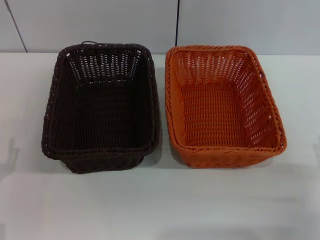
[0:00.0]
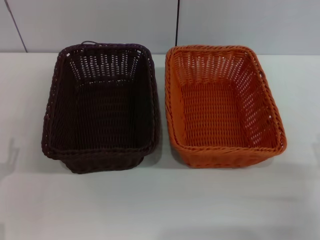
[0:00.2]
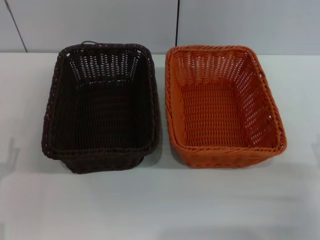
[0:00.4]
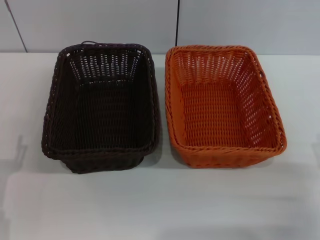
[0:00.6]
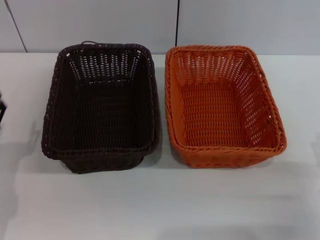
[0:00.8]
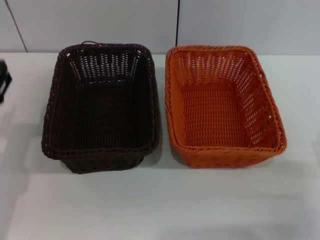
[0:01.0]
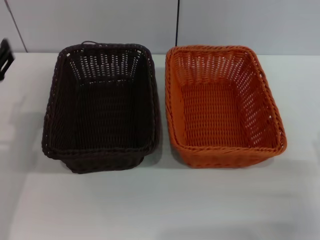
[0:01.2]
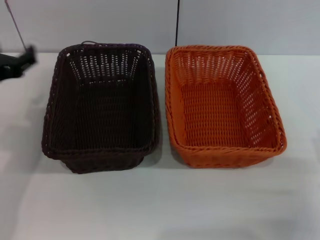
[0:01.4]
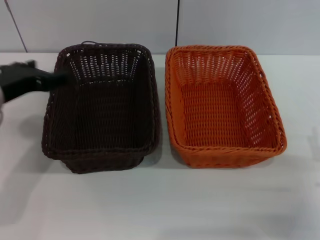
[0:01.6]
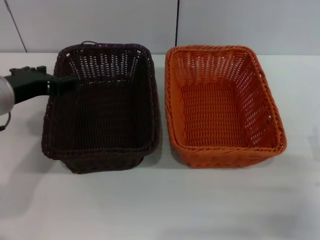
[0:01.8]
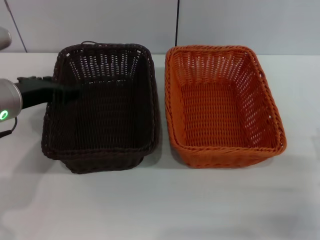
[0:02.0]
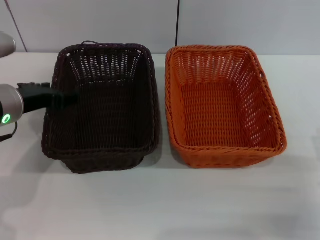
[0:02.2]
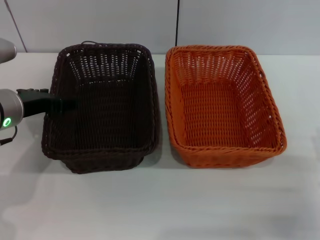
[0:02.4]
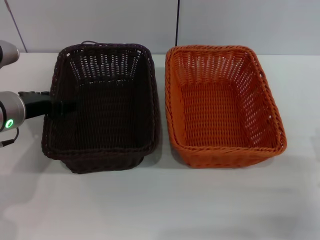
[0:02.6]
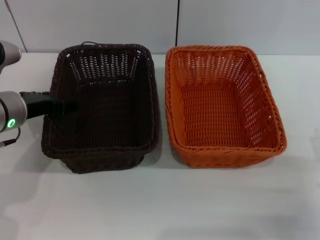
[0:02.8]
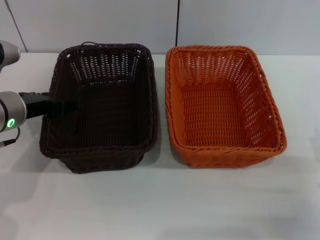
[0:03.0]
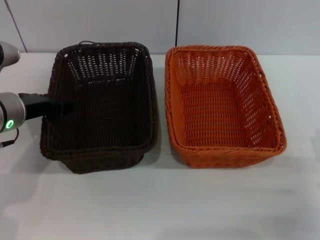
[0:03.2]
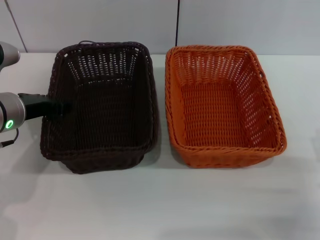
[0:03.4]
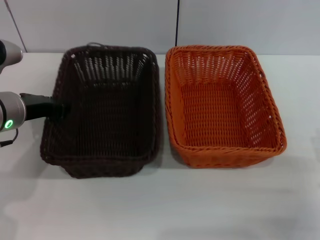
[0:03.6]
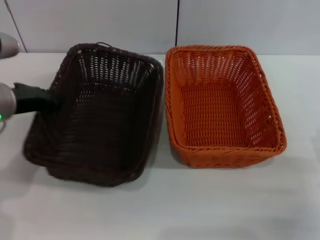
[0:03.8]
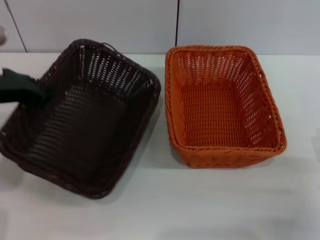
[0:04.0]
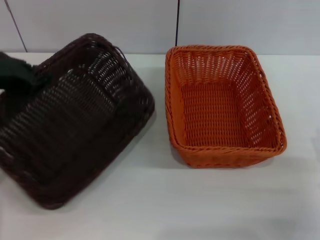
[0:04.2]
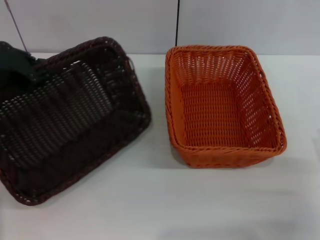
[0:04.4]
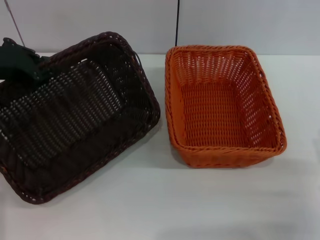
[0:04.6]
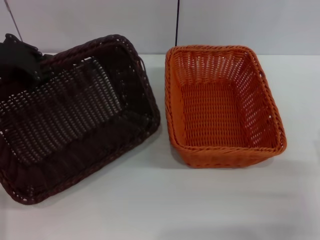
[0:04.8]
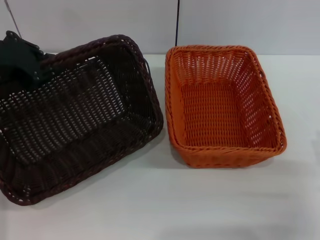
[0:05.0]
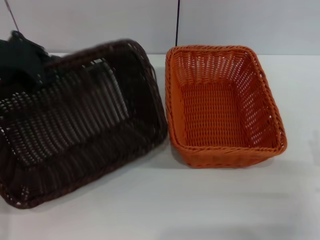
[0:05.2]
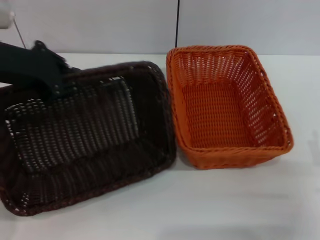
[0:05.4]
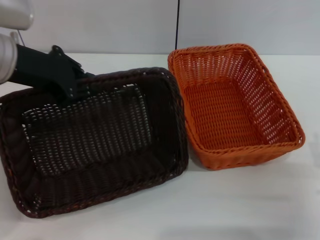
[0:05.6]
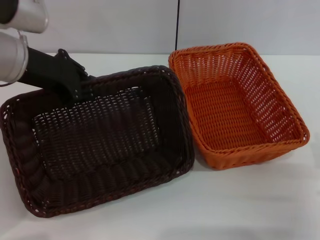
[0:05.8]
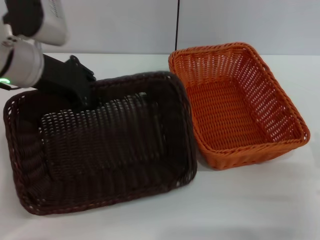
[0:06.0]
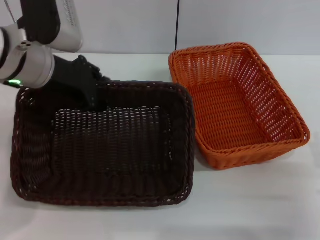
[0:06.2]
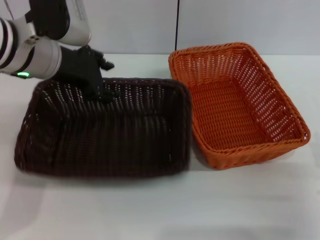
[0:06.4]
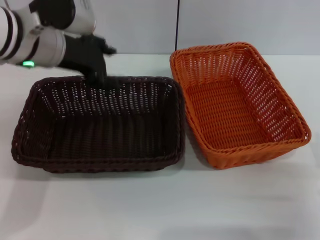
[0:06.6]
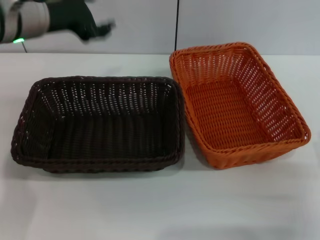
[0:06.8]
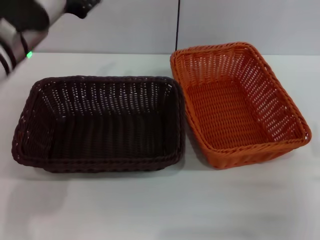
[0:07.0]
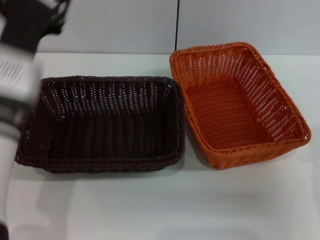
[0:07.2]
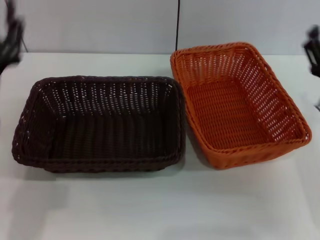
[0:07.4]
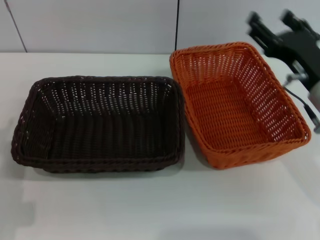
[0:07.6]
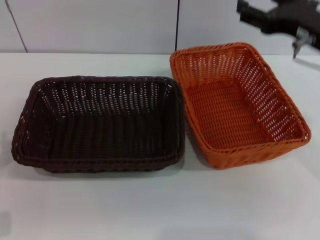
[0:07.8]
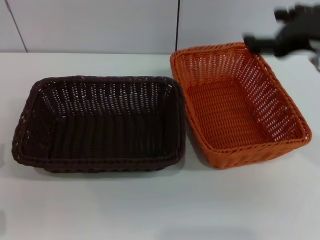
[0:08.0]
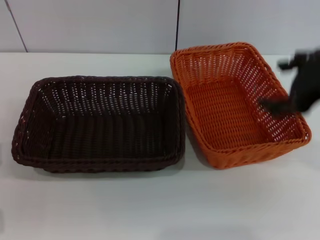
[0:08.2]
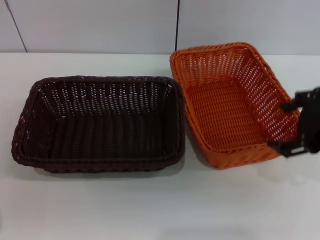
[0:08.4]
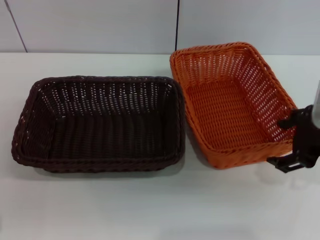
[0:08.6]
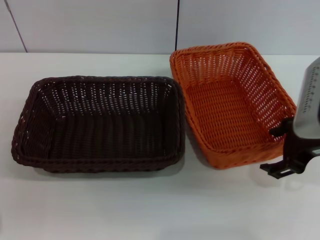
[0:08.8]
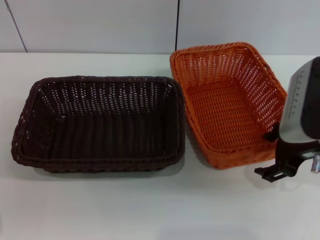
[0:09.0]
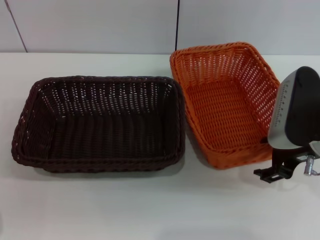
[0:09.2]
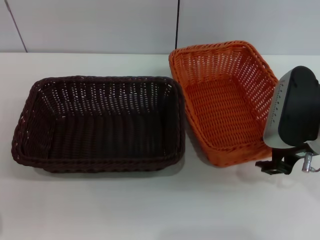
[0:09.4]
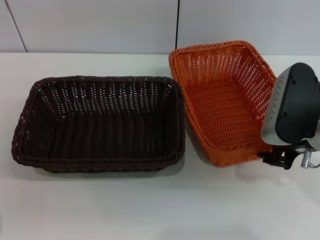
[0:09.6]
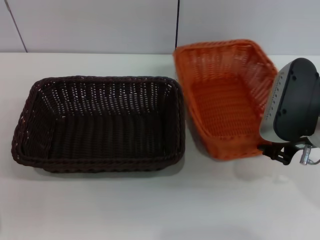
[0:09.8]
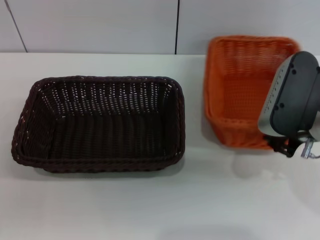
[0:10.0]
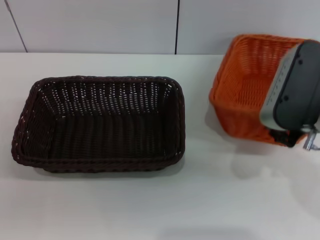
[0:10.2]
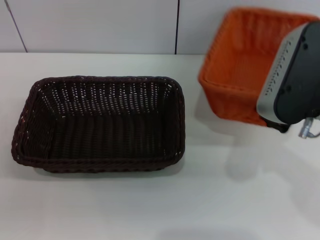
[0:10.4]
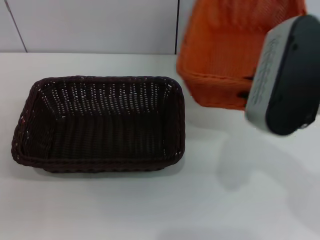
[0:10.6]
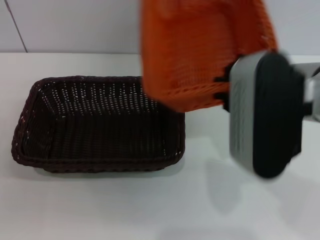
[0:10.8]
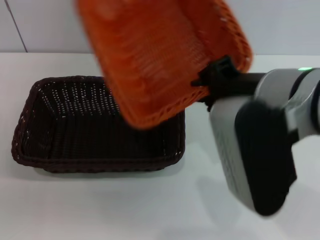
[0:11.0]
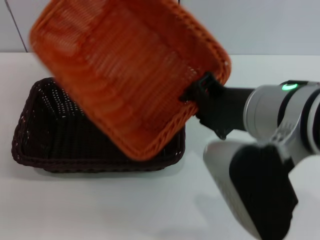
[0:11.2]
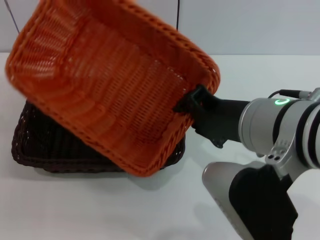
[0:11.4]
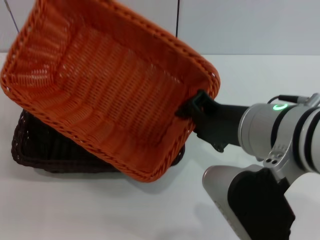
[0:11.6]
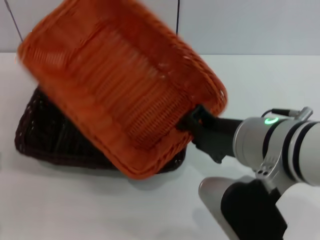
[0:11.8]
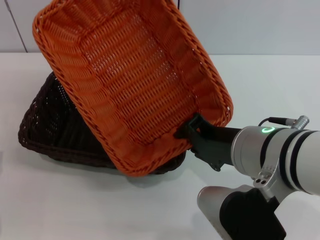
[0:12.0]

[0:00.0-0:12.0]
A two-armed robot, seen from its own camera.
Step, 0:00.0 to 0:04.0: Pick up the dark basket with the left gripper.
Step, 0:04.4 to 0:06.4: Place the dark basket in the center of view with the left gripper.
Step, 0:06.6 to 0:10.2: Pick up the light basket with the right gripper.
0:00.0 to 0:01.6: The left gripper is displaced upward and forward by about 20 cm.
0:01.6 to 0:03.0: The left gripper moves downward, some 5 cm.
0:03.0 to 0:04.4: The left gripper travels upward by roughly 10 cm, and closes up.
0:04.4 to 0:06.0: The left gripper moves to the right, about 5 cm.
0:06.0 to 0:07.6: The right gripper moves forward, upward and to the left, about 15 cm, while the left gripper goes approximately 20 cm downward and backward, and opens.
0:07.6 to 0:09.0: The left gripper changes place by some 5 cm. Meanwhile the right gripper travels upward and back again, roughly 10 cm each way.
0:09.0 to 0:10.4: The right gripper is displaced upward by some 5 cm, and closes up.
0:10.4 to 0:12.0: The right gripper moves to the left, about 5 cm.

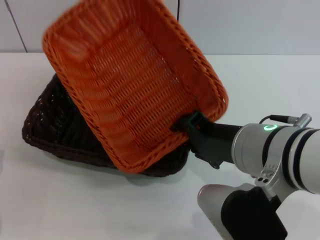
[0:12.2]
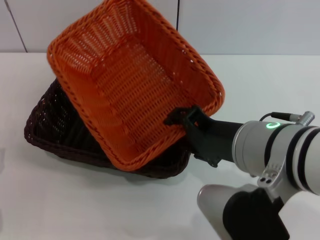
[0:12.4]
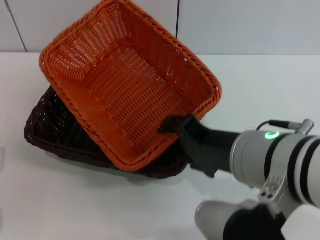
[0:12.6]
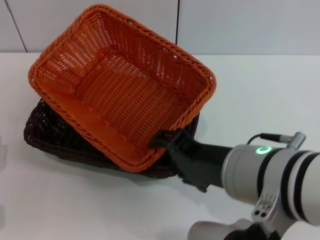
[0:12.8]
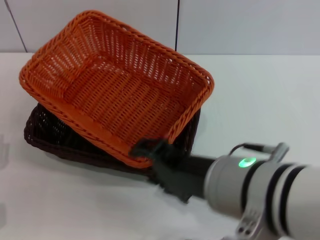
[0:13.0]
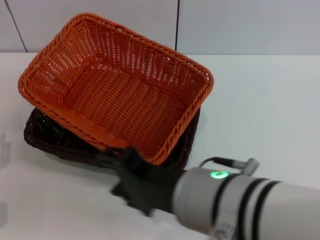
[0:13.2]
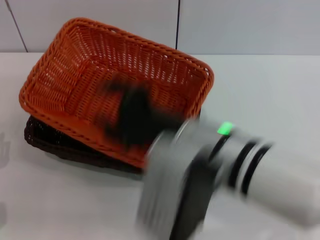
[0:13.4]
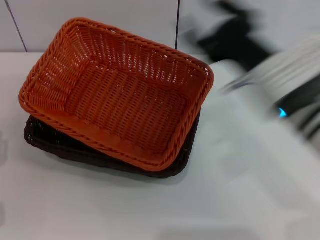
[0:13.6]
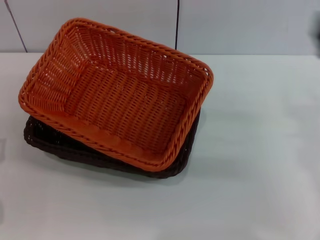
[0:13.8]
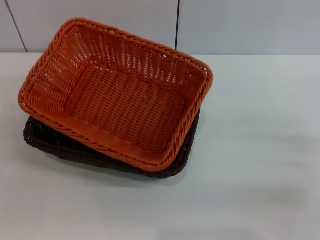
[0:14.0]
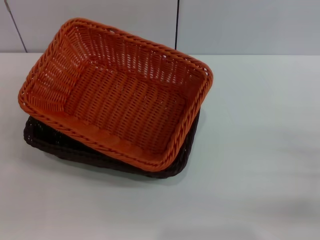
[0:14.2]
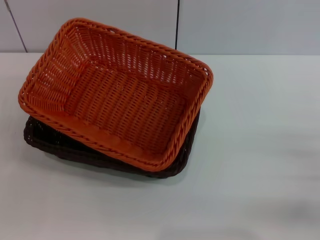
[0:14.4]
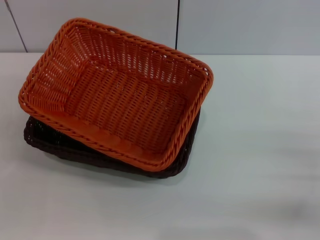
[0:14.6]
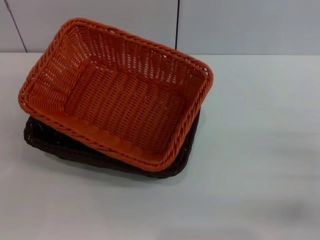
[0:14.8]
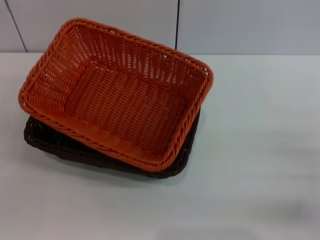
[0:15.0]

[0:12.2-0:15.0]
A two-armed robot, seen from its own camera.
0:12.2 to 0:13.6: The right gripper shifts roughly 5 cm forward, and opens.
0:13.6 to 0:15.0: The right gripper goes approximately 20 cm to the right and downward.

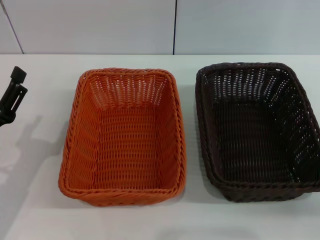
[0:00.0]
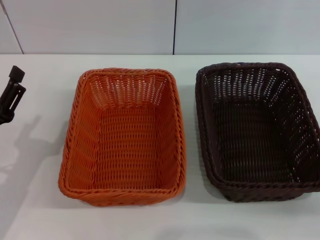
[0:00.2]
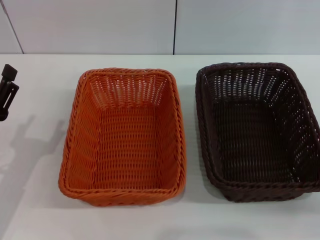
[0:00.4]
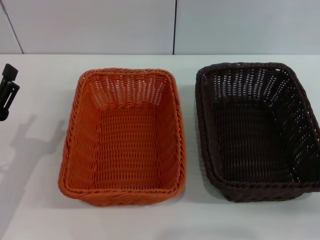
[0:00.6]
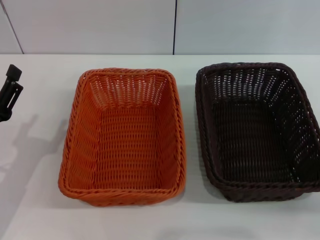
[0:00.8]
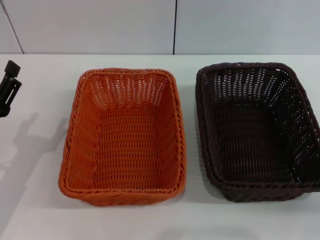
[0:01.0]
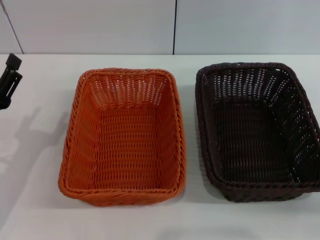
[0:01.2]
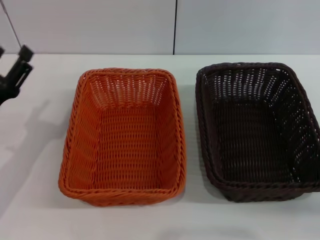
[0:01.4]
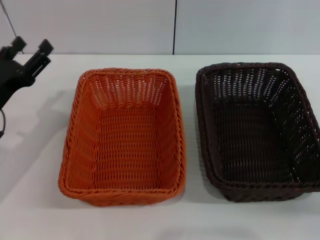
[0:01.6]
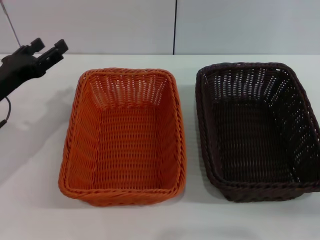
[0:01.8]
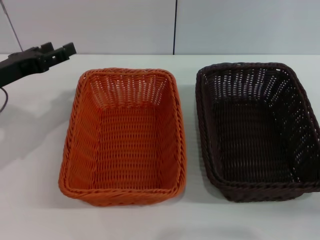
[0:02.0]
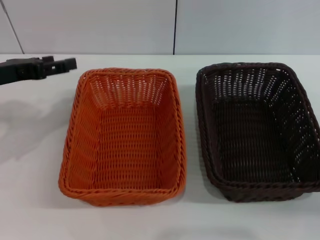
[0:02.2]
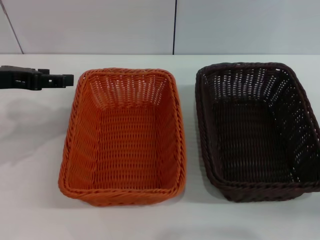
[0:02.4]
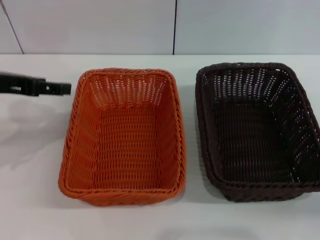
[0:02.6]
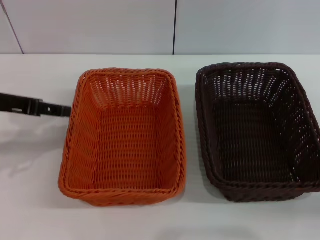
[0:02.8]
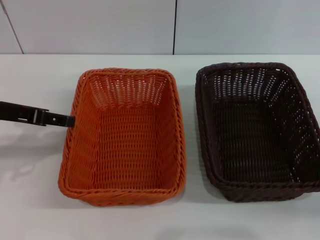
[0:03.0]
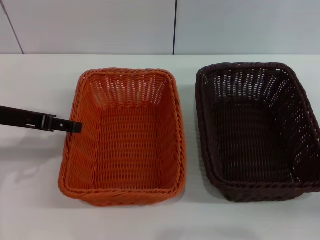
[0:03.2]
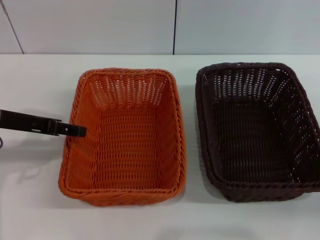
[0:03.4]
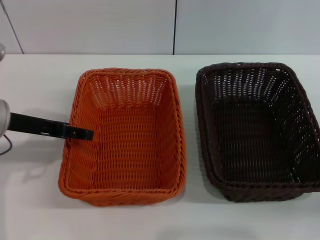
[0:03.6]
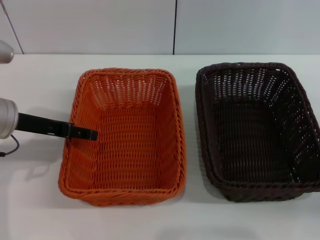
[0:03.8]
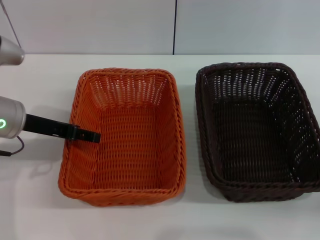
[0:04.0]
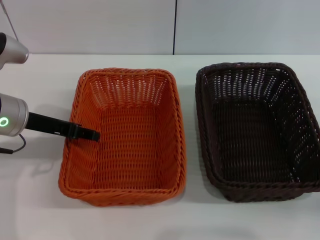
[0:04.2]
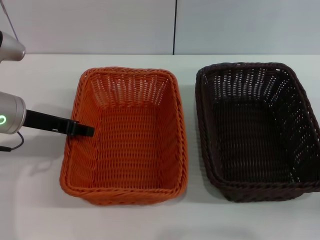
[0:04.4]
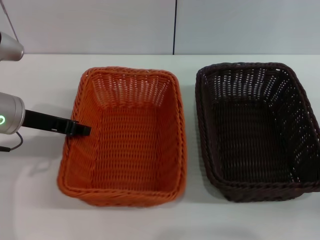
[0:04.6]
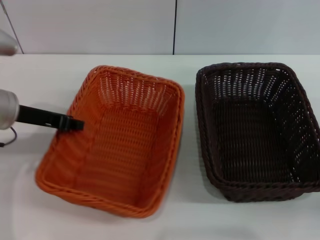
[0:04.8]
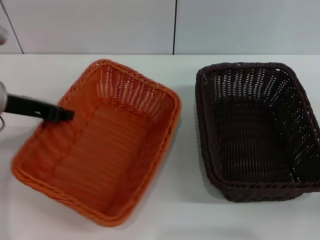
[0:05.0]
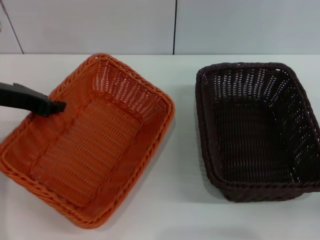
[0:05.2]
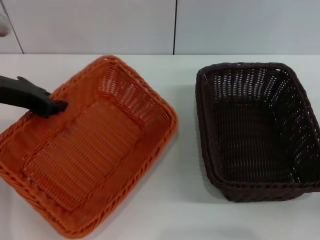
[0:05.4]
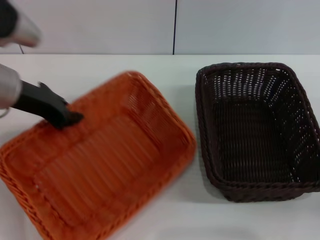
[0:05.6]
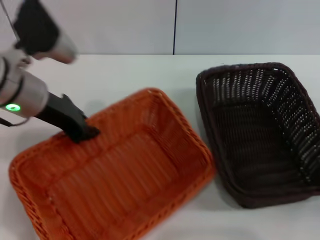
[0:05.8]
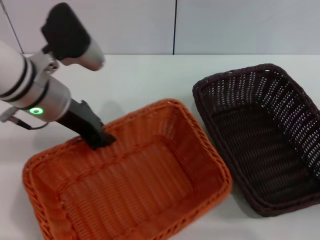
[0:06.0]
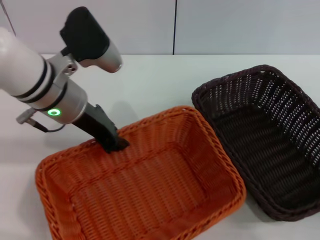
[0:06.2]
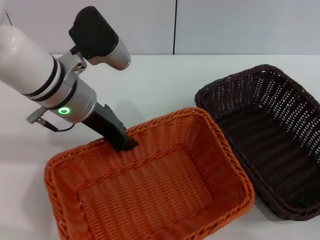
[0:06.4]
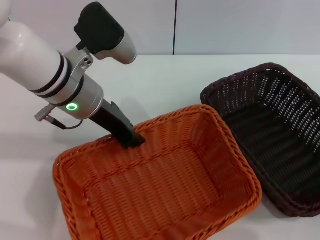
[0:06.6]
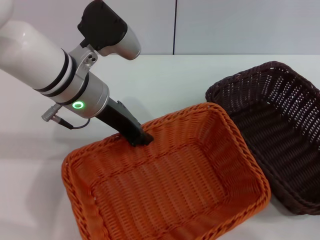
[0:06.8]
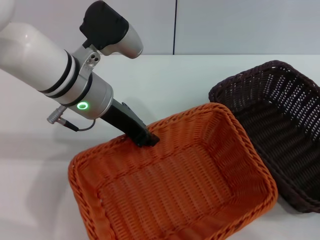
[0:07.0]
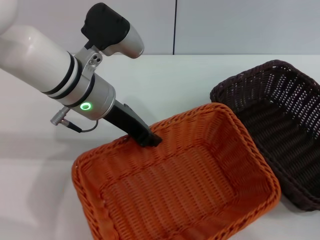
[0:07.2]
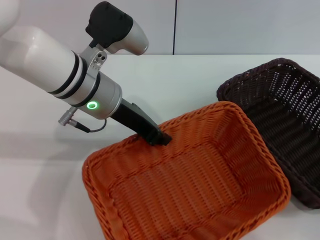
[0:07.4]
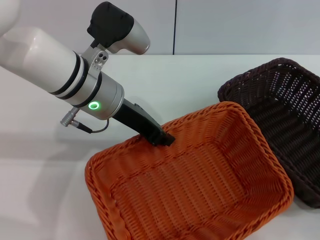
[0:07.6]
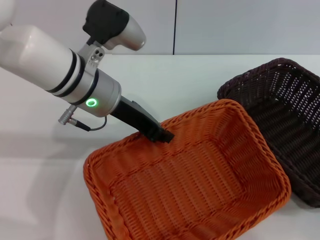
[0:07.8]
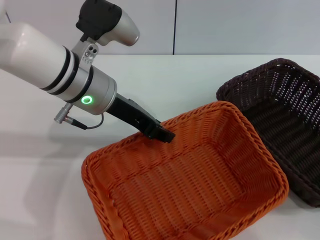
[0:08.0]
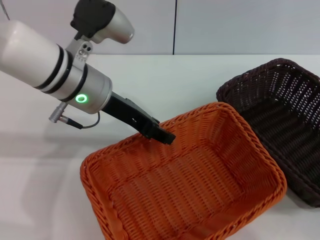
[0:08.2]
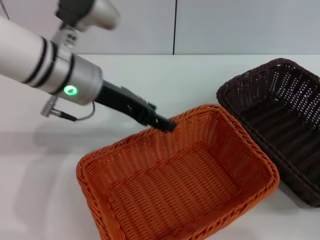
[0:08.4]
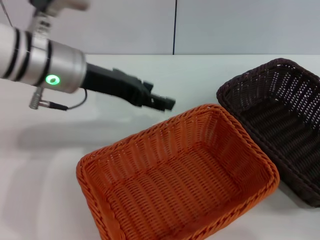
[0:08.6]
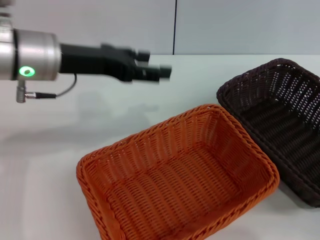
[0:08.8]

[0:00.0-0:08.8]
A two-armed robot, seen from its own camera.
Step, 0:00.0 to 0:05.2: Pick up the light basket with the left gripper.
Step, 0:05.4 to 0:08.2: Place the light basket in the center of view with the left gripper.
0:00.0 to 0:01.4: The grippers move only a little.
0:01.4 to 0:03.0: The left gripper moves upward and forward, about 15 cm.
0:03.0 to 0:04.4: The left gripper moves approximately 5 cm.
0:04.4 to 0:05.8: The left gripper moves approximately 5 cm, and closes up.
0:05.8 to 0:07.4: The left gripper moves to the right, about 10 cm.
0:07.4 to 0:08.8: The left gripper goes roughly 10 cm to the left, and opens up.
